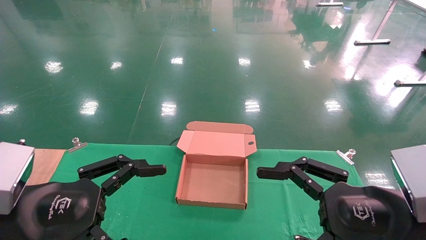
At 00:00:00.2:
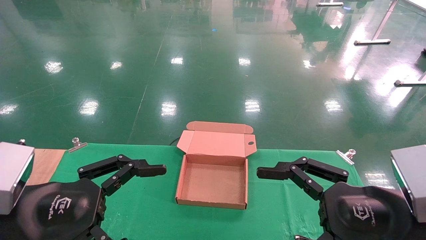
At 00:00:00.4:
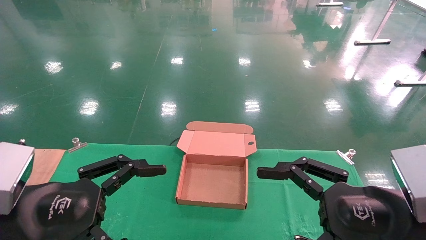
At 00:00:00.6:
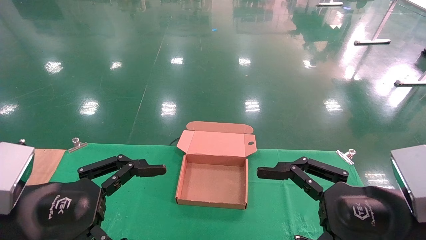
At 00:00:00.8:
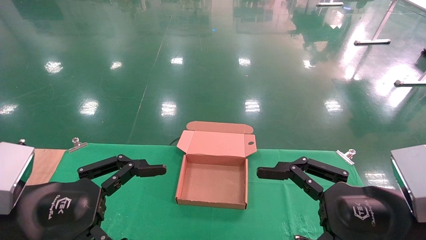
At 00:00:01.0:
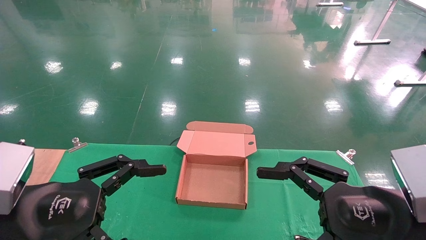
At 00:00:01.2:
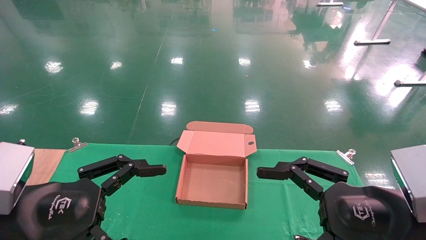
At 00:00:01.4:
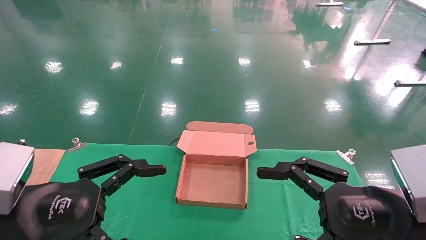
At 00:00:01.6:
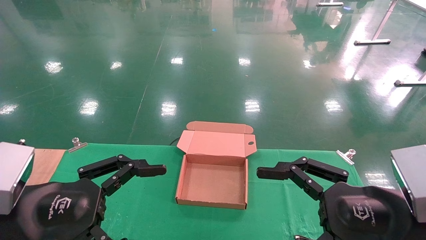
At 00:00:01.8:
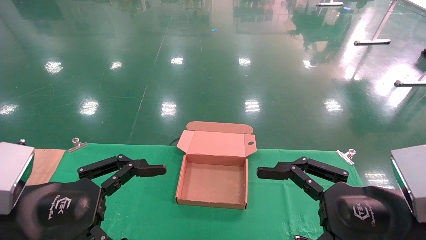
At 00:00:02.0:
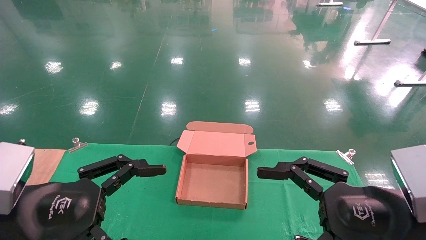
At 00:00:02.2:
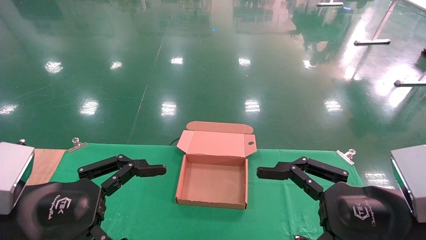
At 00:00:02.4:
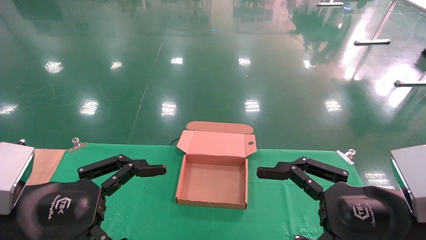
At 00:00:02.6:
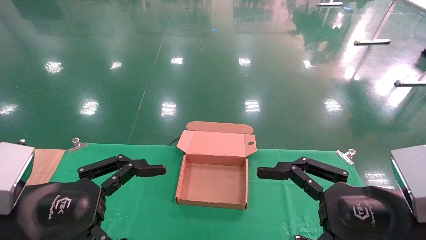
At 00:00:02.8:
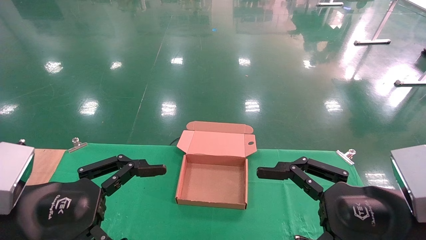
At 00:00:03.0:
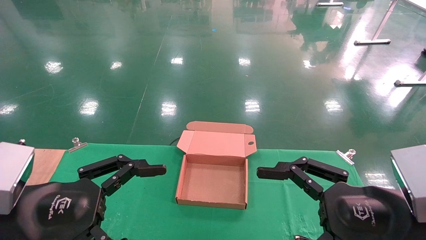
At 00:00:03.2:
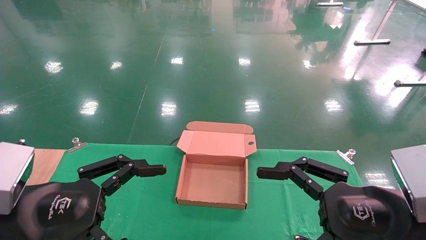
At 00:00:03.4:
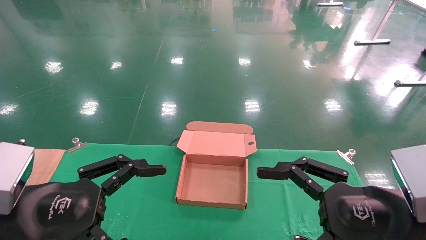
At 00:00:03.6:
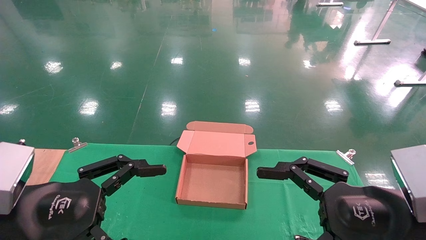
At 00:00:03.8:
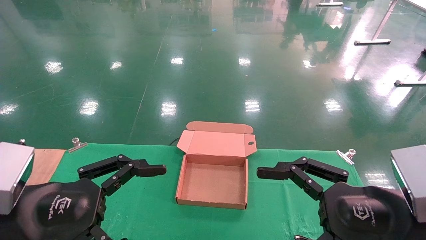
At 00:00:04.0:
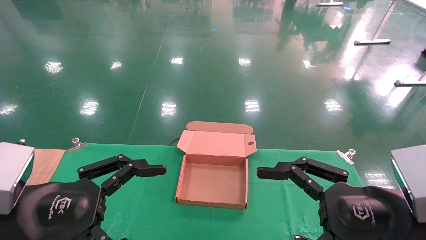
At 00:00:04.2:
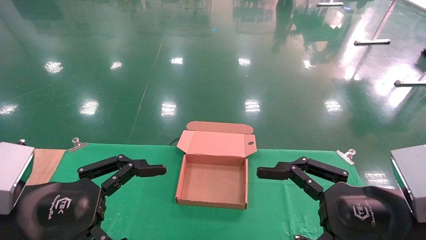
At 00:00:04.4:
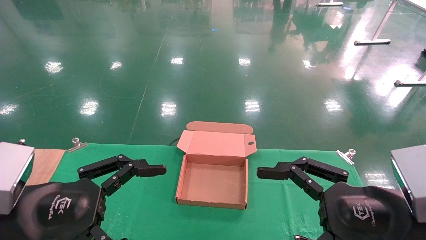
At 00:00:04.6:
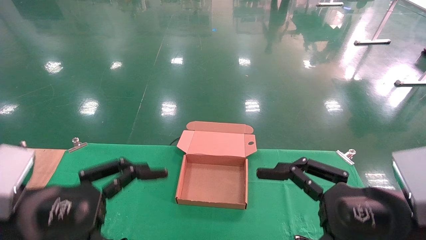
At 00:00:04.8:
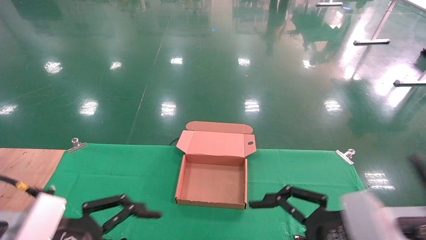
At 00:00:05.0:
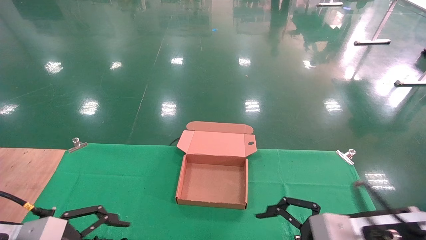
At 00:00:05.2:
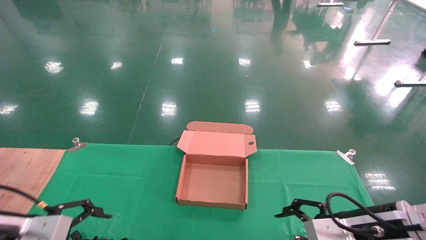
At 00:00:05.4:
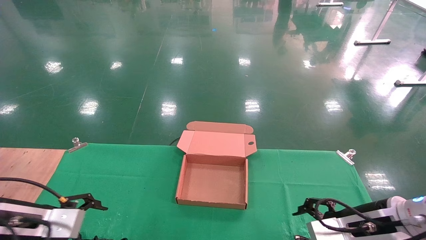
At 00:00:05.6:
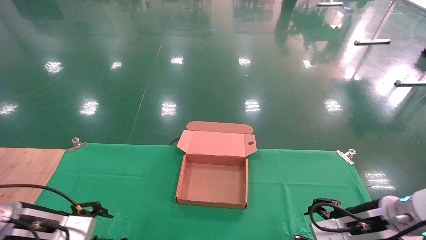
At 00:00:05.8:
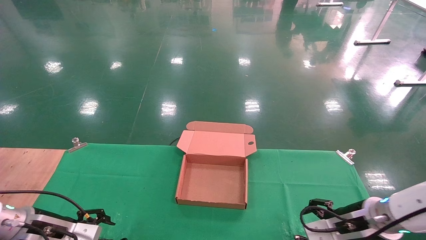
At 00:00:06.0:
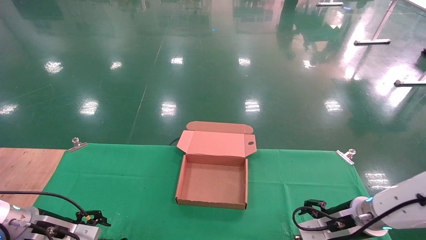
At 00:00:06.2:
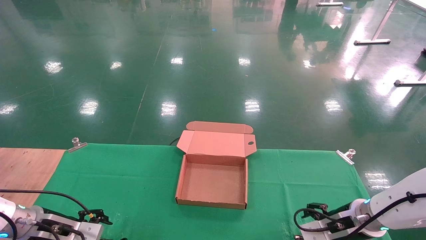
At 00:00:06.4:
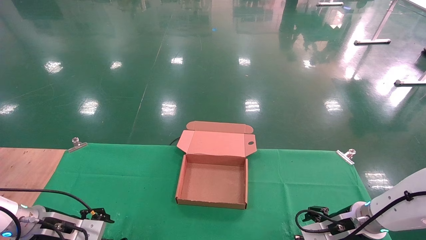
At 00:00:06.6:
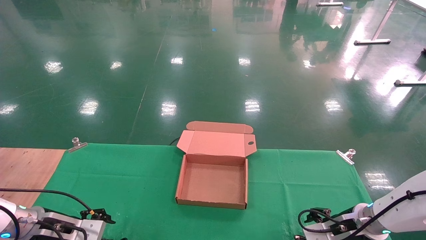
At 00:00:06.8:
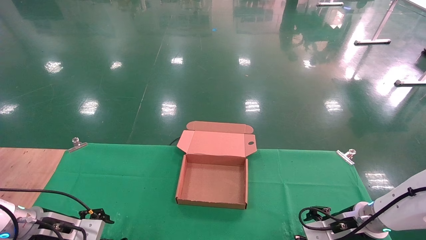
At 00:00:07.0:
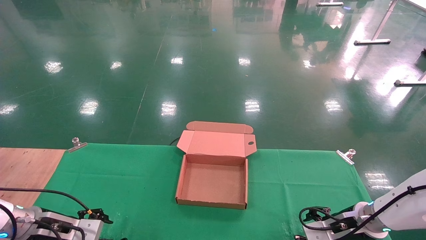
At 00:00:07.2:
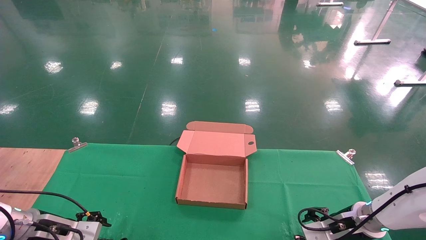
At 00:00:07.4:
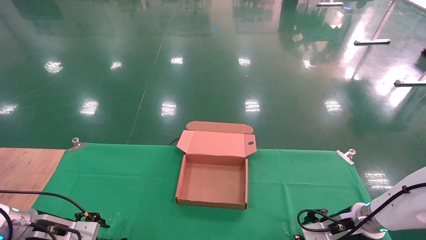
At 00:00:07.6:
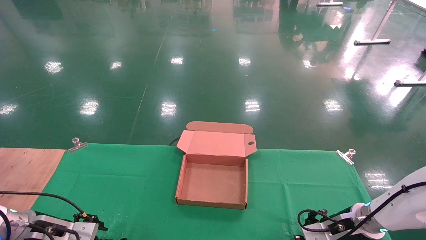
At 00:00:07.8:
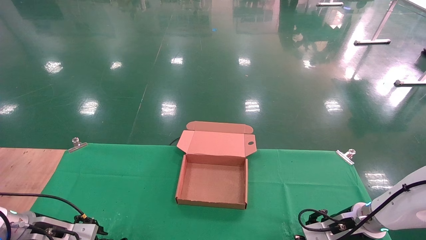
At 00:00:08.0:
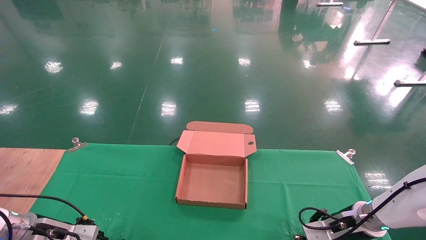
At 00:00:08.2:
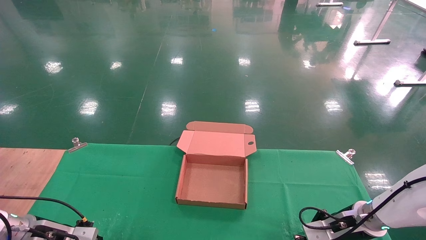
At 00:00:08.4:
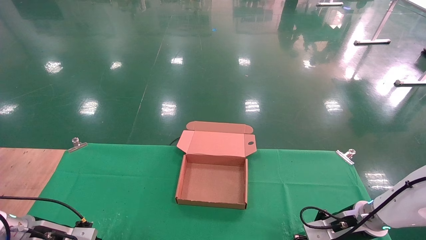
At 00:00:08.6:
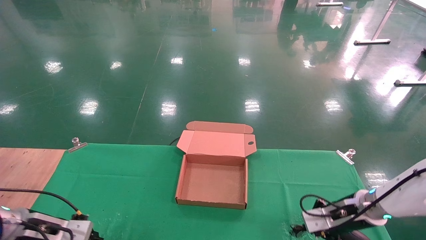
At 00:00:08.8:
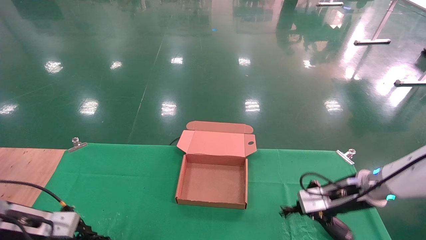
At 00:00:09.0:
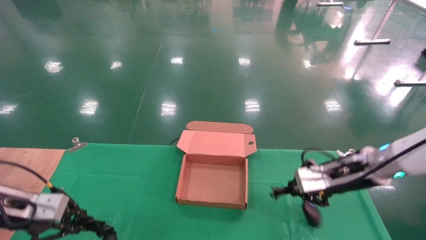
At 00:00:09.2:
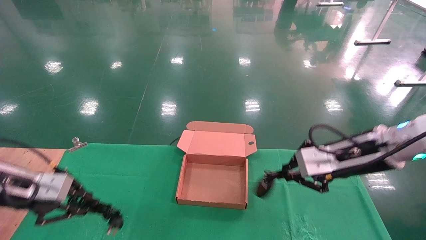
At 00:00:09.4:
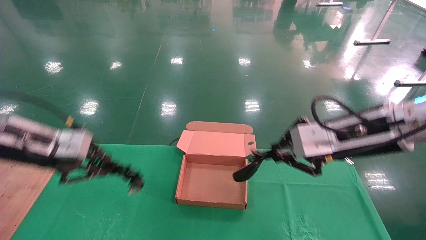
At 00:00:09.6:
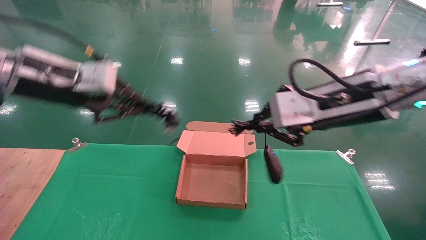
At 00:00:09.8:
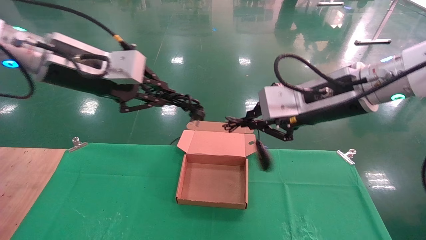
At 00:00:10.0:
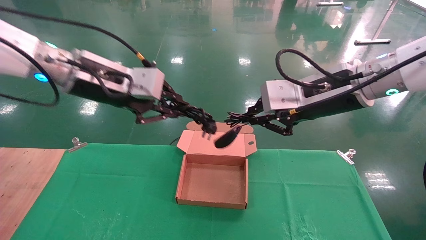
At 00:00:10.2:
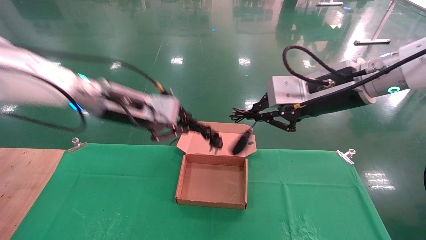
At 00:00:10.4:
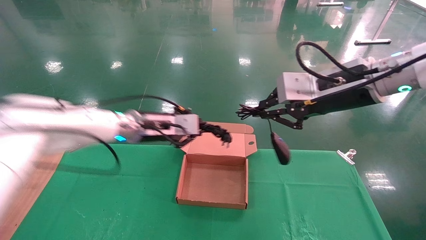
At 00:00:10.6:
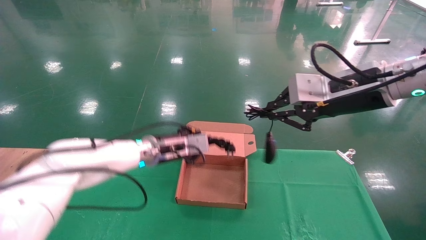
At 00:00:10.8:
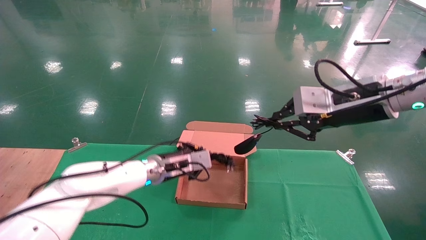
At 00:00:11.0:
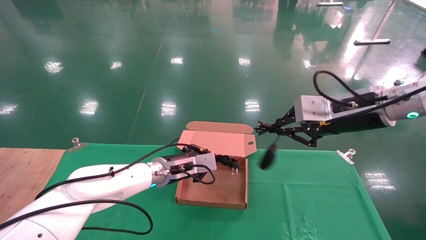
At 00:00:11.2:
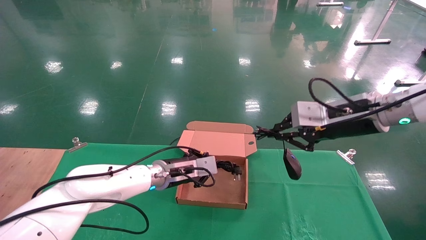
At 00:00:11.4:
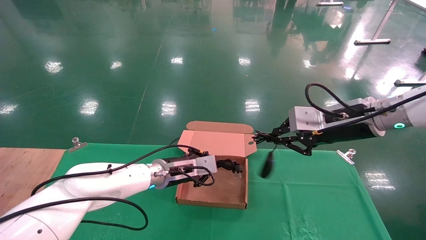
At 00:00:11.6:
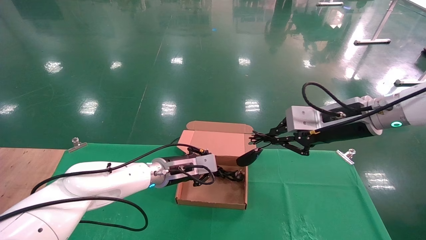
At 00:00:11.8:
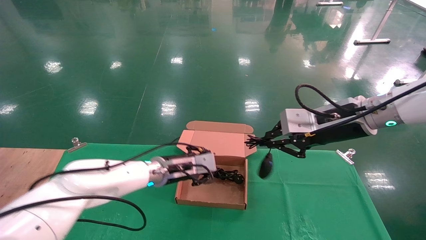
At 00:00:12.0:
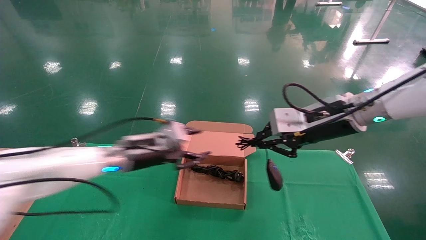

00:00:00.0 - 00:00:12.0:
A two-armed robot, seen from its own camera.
Step, 00:00:05.8 - 00:00:09.2: Grab and lift both the mouse and power cord from the accessory packaging area at the same time.
00:00:00.0 - 00:00:04.4: Neither gripper changes place.
00:00:04.4 - 00:00:06.0: The left gripper shifts some 25 cm forward, downward and to the left. Meanwhile the right gripper goes some 20 cm forward and downward.
00:00:06.0 - 00:00:07.6: The right gripper shifts by some 5 cm.
00:00:07.6 - 00:00:09.0: The grippers both shift upward by some 15 cm. The right gripper closes its fingers; the left gripper closes.
00:00:09.0 - 00:00:10.4: The left gripper moves to the right and forward, approximately 30 cm; the right gripper is displaced upward by roughly 15 cm.
00:00:10.4 - 00:00:12.0: The left gripper moves downward and to the left, approximately 10 cm, and opens up, while the right gripper is displaced downward by roughly 5 cm.

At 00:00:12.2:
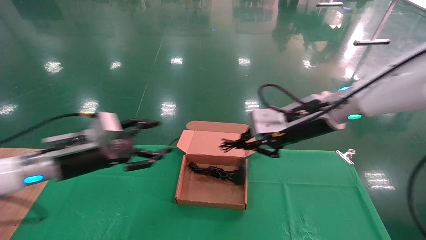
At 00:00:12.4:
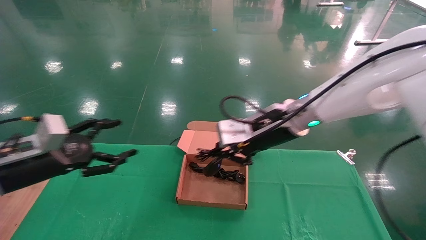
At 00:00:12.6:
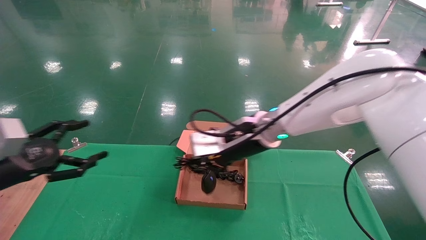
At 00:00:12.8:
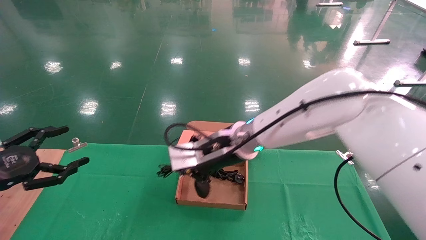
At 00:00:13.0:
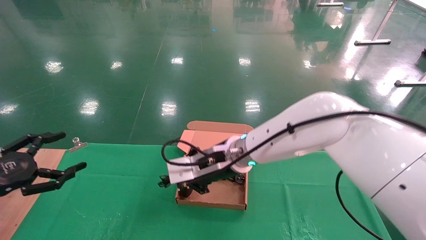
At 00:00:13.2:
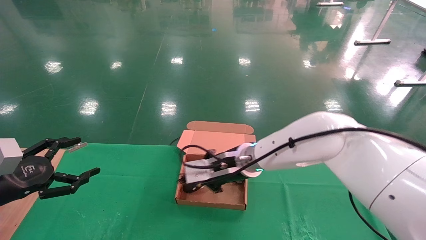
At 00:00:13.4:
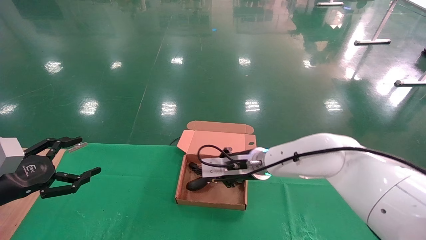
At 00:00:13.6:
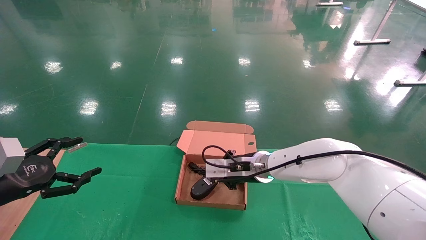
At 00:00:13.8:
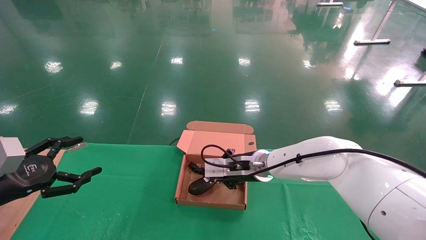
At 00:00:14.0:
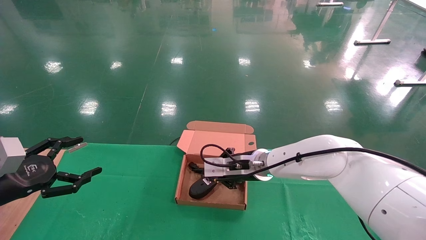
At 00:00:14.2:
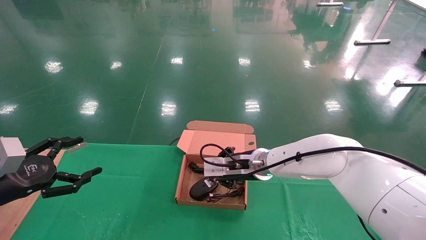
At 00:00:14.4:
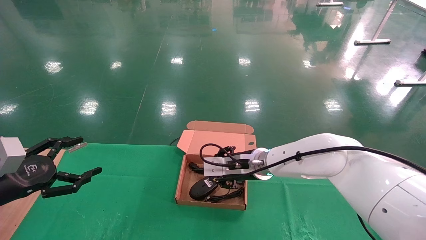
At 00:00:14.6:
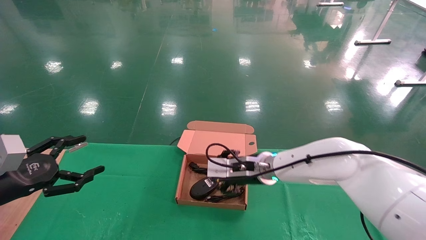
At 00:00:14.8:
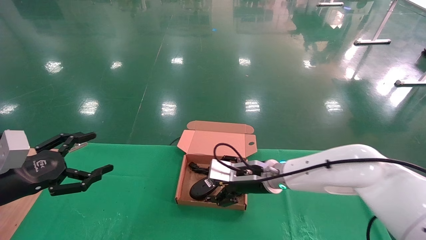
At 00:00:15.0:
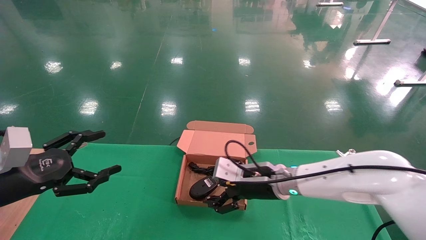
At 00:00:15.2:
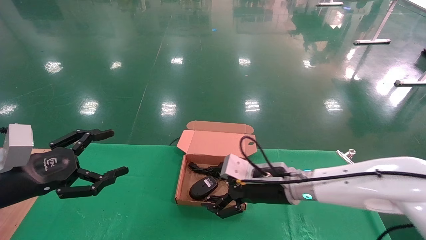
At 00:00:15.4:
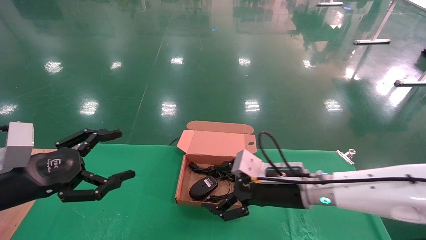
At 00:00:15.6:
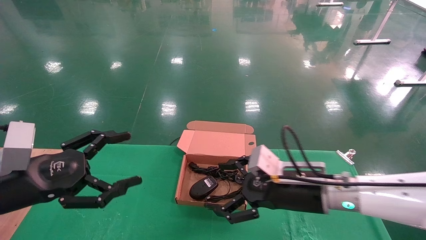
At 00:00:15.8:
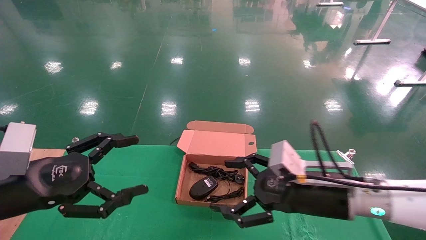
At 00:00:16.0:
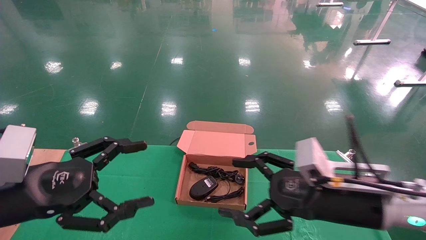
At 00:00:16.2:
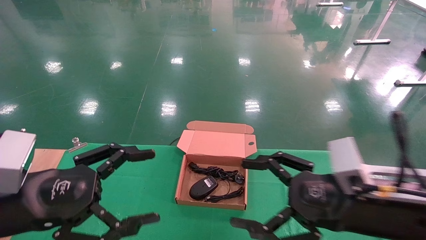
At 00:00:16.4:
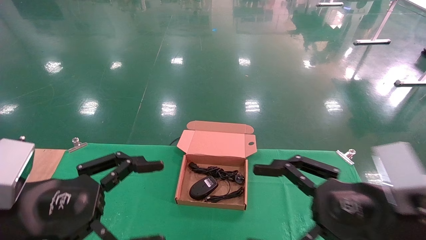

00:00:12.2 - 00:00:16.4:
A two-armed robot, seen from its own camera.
00:00:12.2 - 00:00:13.6: The left gripper is displaced to the left and backward by about 15 cm, and opens, while the right gripper is displaced downward, to the left and forward by some 20 cm.
00:00:13.6 - 00:00:15.0: The left gripper travels to the right by about 5 cm. Meanwhile the right gripper goes about 5 cm backward, and opens.
00:00:15.0 - 00:00:16.4: The right gripper heads backward and to the right, covering approximately 25 cm. The left gripper travels to the right and backward by some 15 cm.
